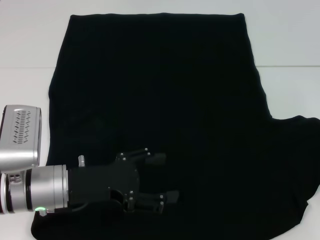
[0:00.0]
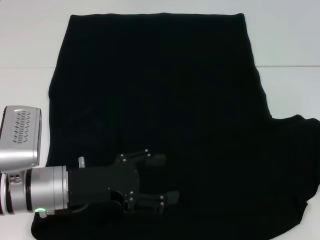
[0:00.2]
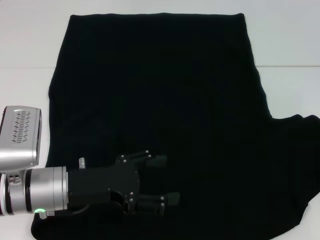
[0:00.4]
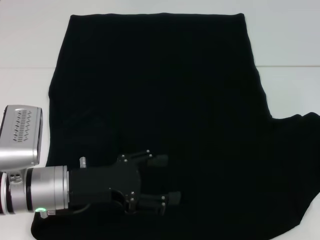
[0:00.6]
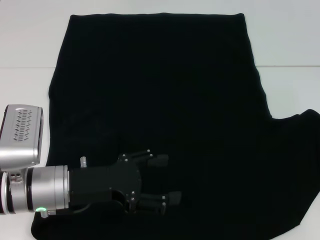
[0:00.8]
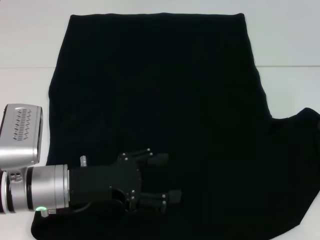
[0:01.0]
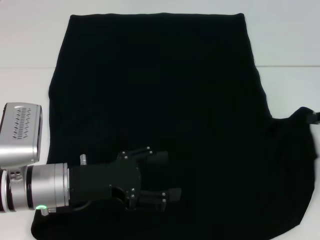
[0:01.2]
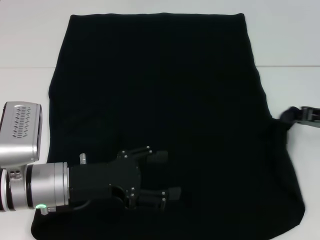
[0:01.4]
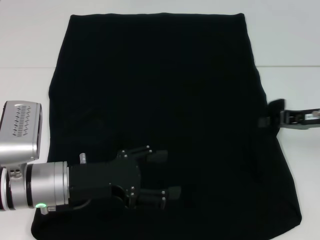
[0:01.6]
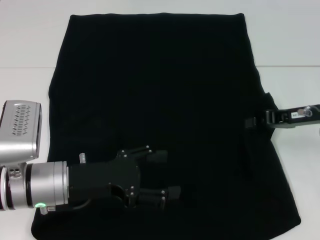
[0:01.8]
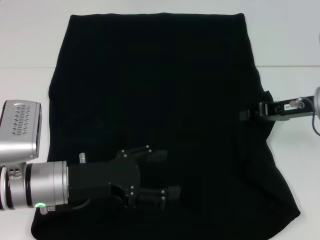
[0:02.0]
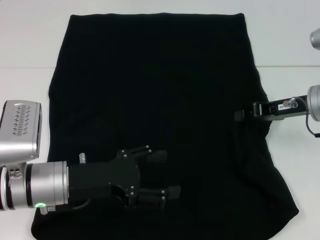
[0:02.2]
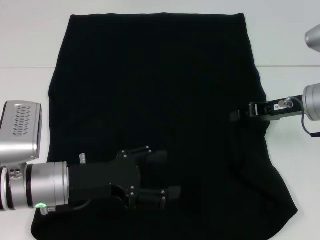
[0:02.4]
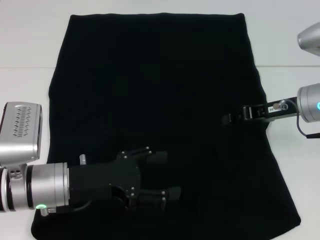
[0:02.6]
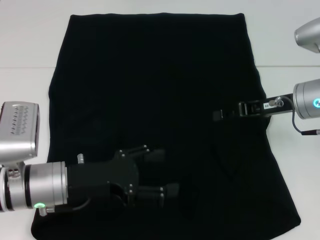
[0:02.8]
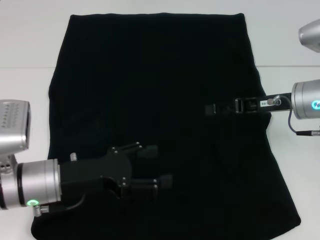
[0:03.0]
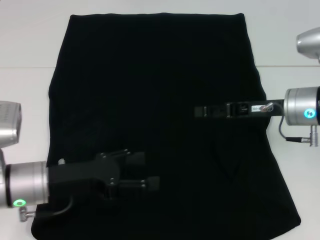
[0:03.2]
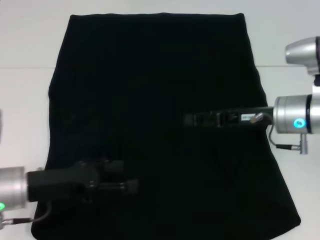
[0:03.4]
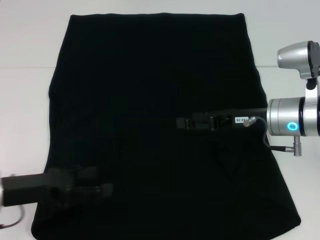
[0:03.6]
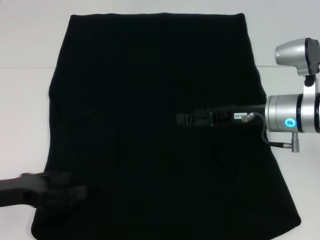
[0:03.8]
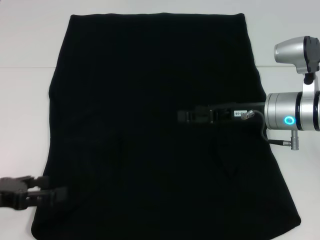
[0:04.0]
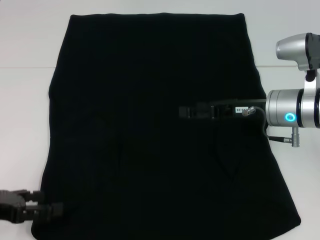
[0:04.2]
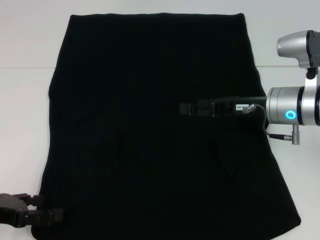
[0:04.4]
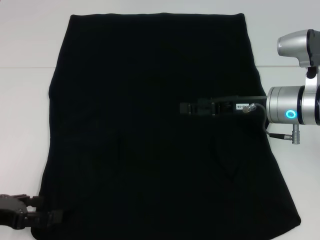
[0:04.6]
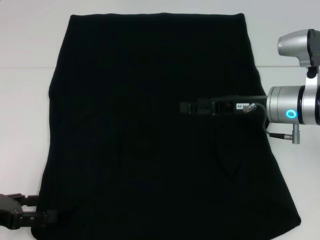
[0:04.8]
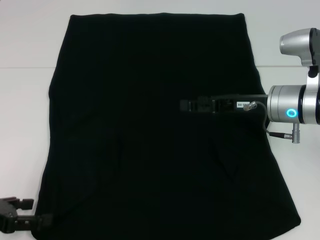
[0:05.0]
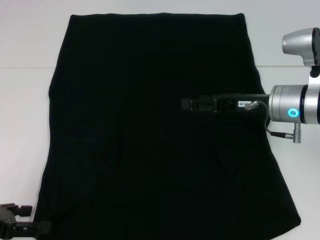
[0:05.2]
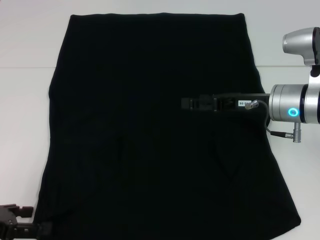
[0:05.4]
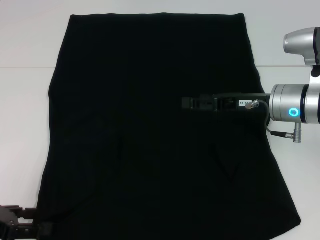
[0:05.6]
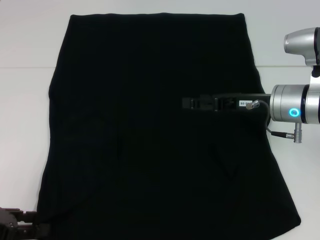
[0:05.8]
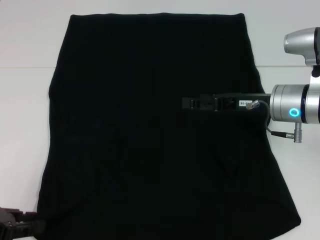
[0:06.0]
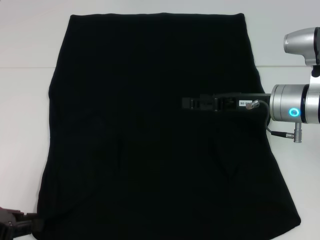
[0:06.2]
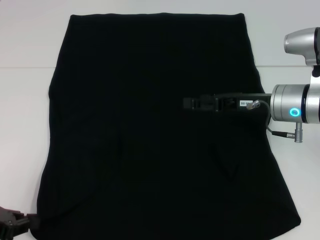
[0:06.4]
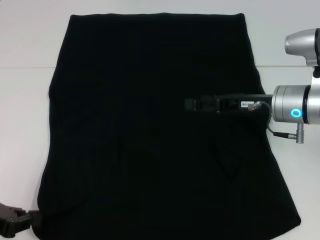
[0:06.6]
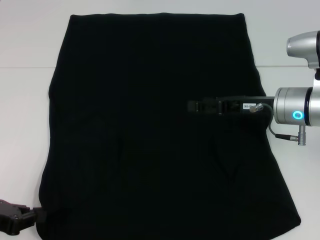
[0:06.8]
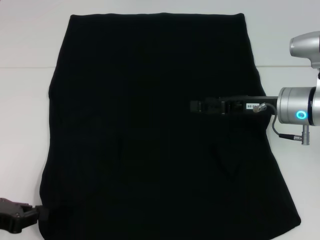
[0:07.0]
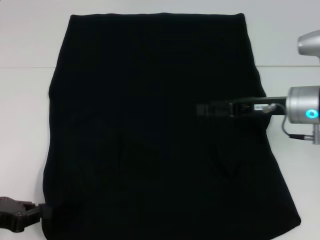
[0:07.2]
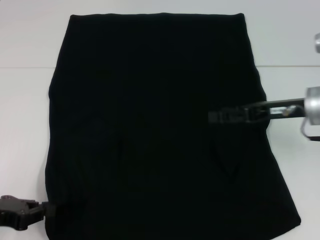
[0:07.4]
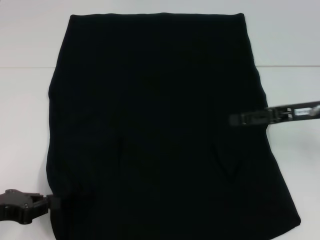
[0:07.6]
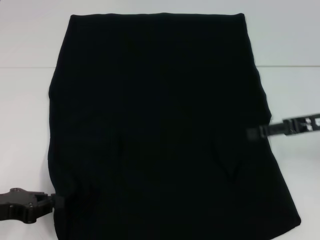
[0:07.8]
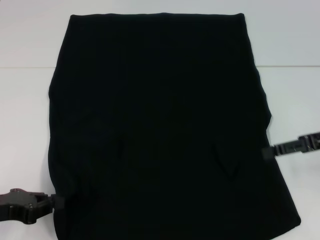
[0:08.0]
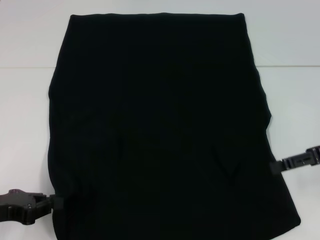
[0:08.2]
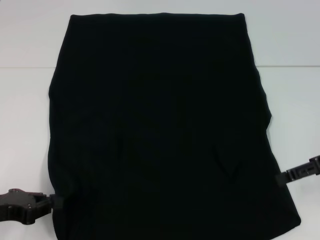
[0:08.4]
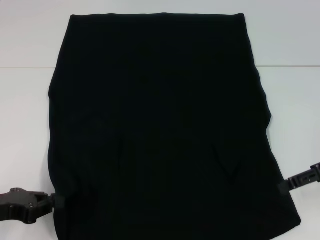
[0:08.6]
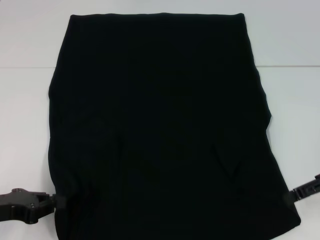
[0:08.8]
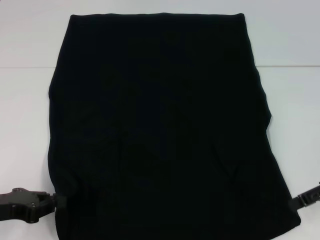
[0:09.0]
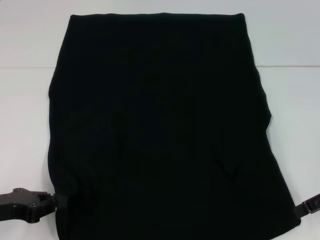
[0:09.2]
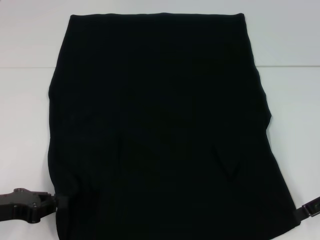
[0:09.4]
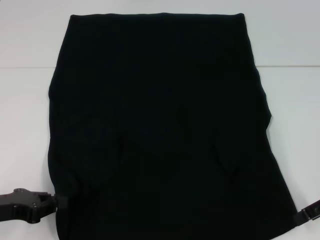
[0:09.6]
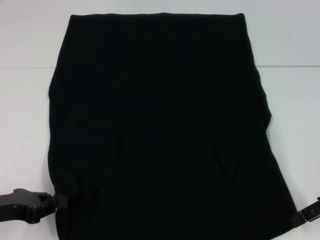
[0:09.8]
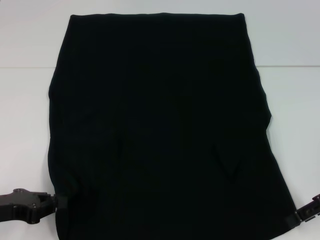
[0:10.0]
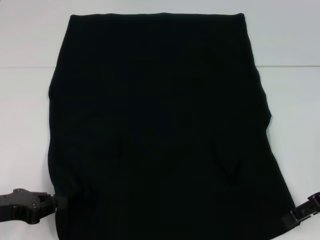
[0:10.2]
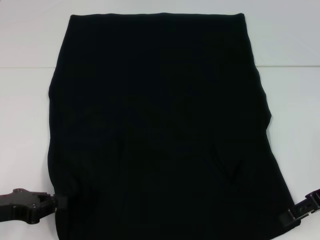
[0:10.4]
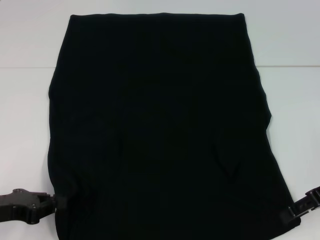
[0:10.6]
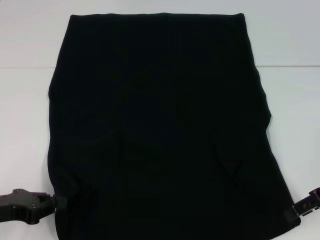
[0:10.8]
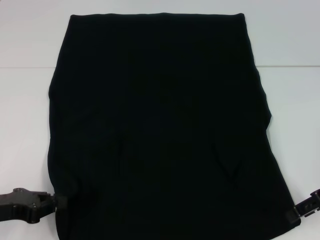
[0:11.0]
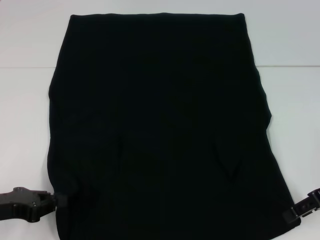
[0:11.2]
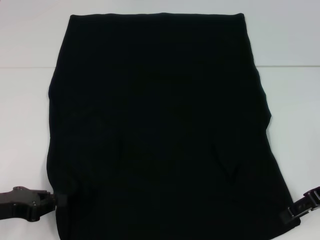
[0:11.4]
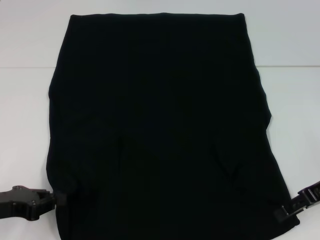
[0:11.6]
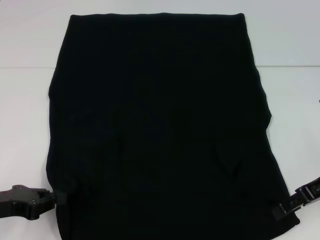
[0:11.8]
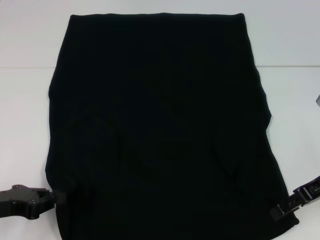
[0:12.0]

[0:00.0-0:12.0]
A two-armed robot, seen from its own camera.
Step, 0:00.0 to 0:04.0: Fold the bottom right sleeve with your right hand.
0:00.0 to 0:01.6: The right gripper heads to the left, covering about 10 cm.
0:01.6 to 0:03.0: The right gripper goes roughly 5 cm to the left, and opens.
0:03.0 to 0:04.4: The right gripper opens its fingers; the left gripper goes some 15 cm to the left.
0:04.4 to 0:06.0: There are only small adjustments of the grippers.
0:06.0 to 0:07.6: The left gripper closes up. Meanwhile the right gripper heads to the right, covering about 10 cm.
0:07.6 to 0:09.0: The right gripper shifts by approximately 5 cm.
0:09.0 to 0:12.0: There are only small adjustments of the grippers.

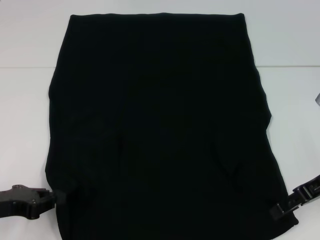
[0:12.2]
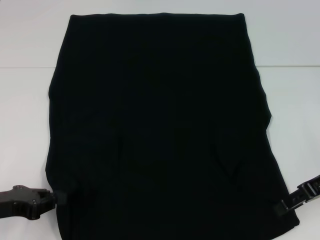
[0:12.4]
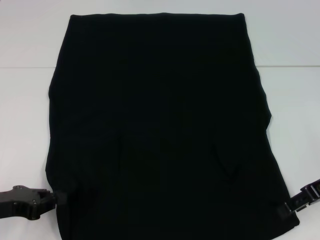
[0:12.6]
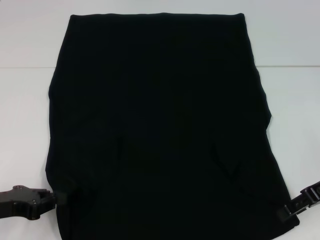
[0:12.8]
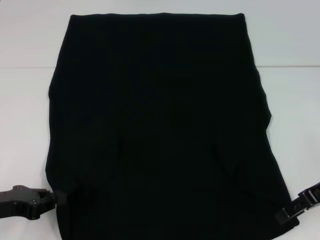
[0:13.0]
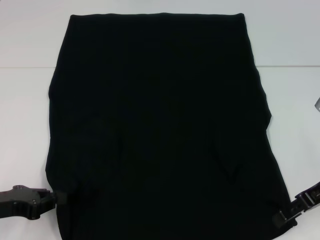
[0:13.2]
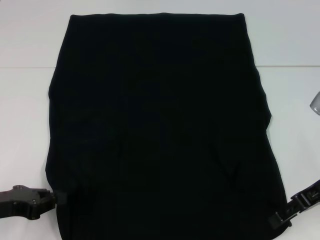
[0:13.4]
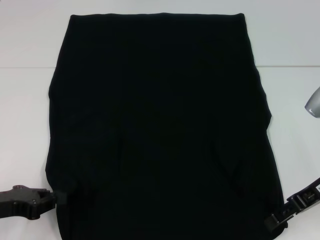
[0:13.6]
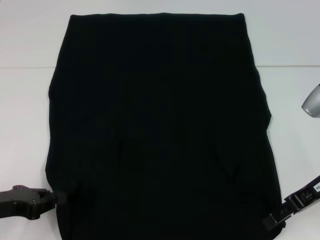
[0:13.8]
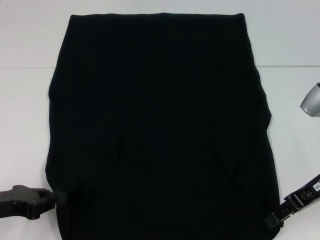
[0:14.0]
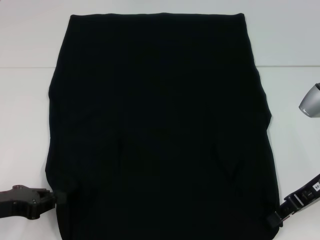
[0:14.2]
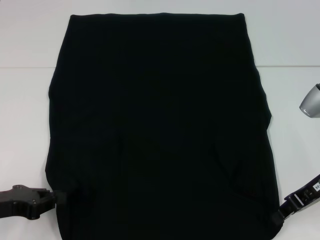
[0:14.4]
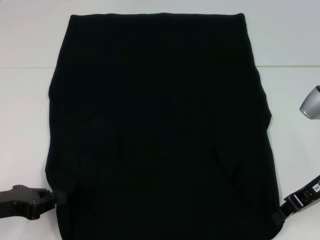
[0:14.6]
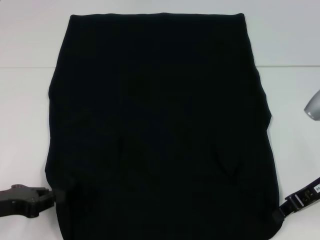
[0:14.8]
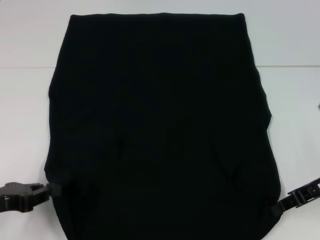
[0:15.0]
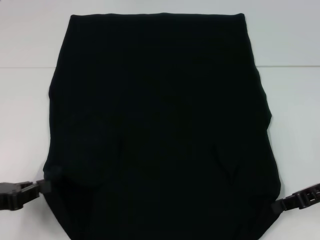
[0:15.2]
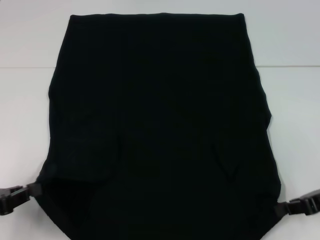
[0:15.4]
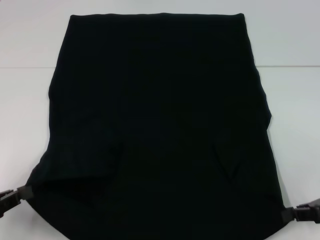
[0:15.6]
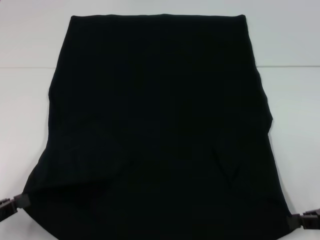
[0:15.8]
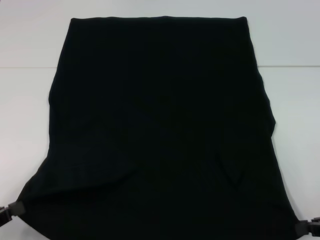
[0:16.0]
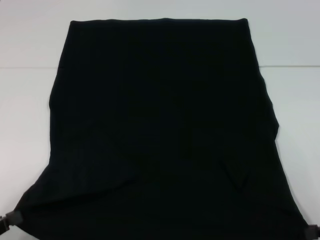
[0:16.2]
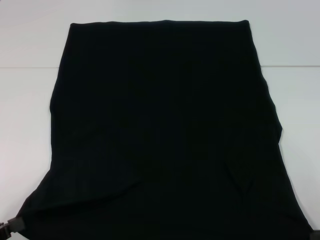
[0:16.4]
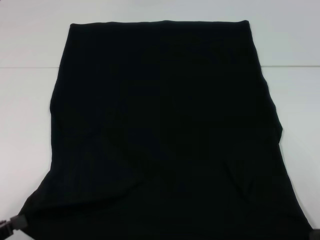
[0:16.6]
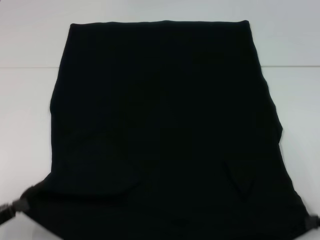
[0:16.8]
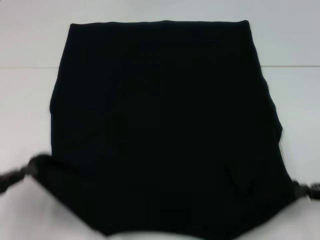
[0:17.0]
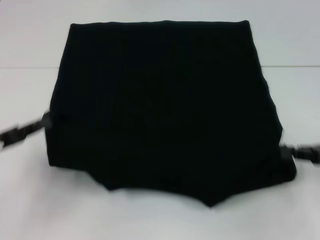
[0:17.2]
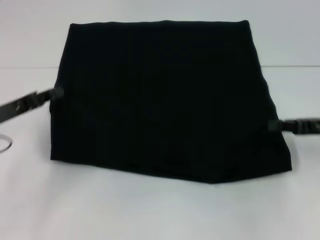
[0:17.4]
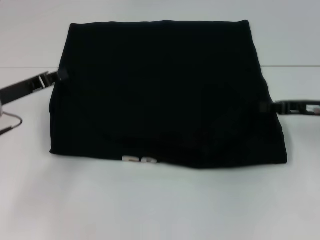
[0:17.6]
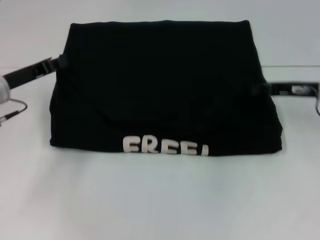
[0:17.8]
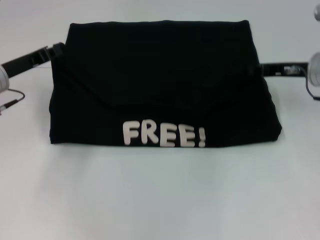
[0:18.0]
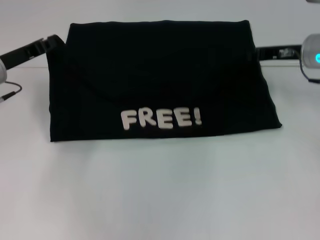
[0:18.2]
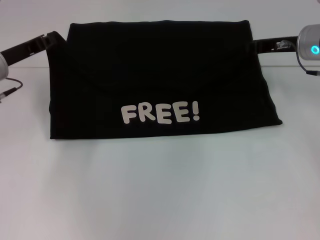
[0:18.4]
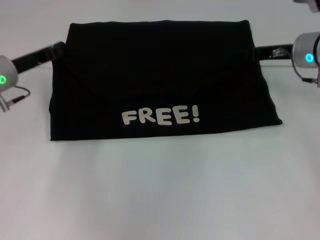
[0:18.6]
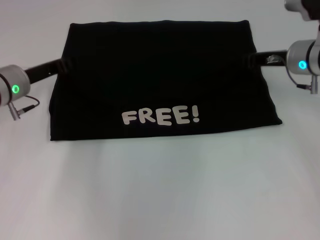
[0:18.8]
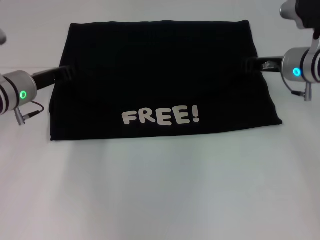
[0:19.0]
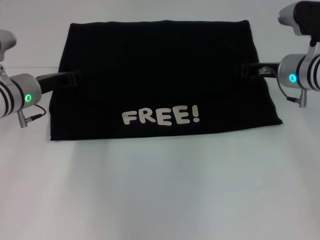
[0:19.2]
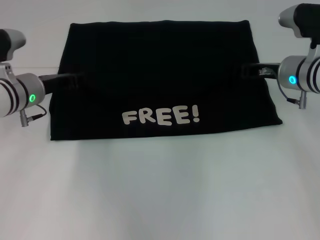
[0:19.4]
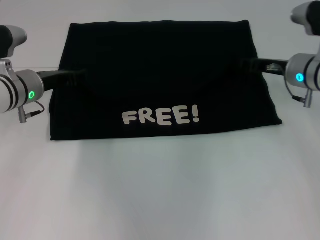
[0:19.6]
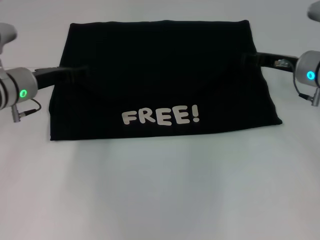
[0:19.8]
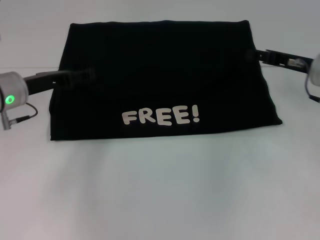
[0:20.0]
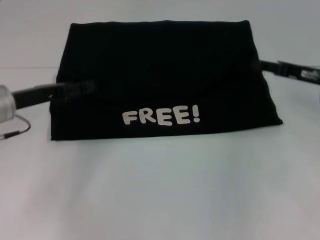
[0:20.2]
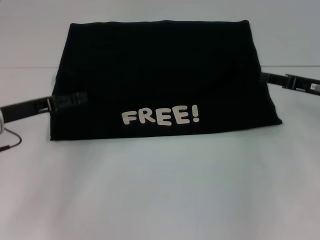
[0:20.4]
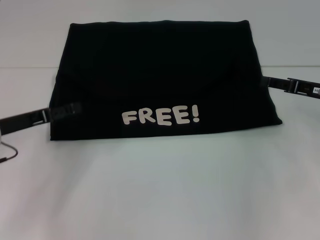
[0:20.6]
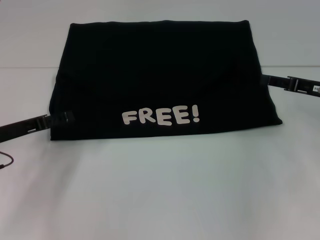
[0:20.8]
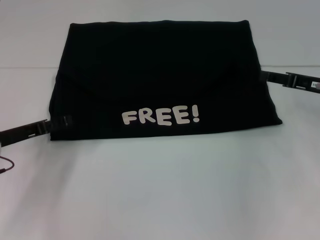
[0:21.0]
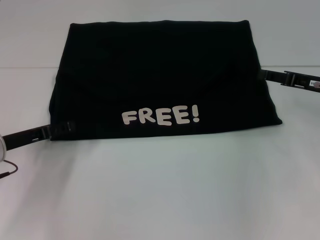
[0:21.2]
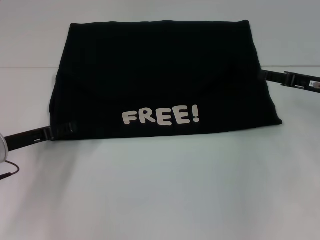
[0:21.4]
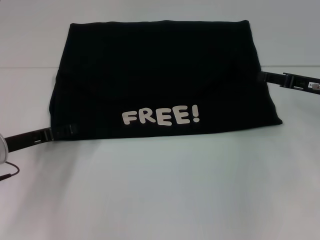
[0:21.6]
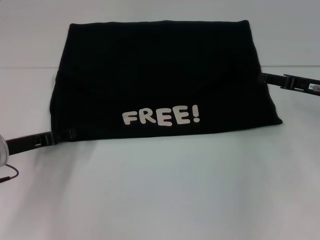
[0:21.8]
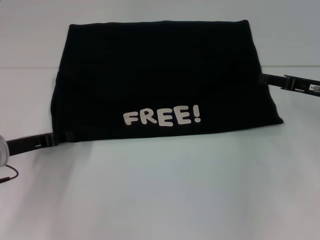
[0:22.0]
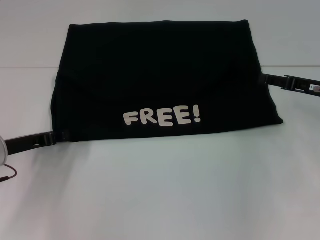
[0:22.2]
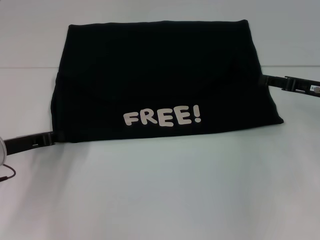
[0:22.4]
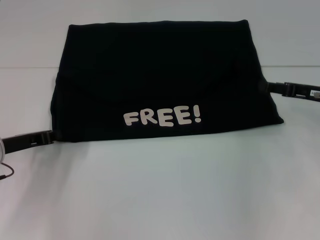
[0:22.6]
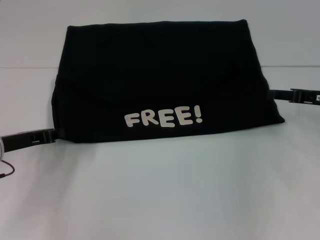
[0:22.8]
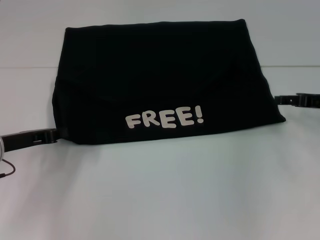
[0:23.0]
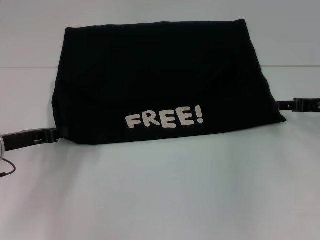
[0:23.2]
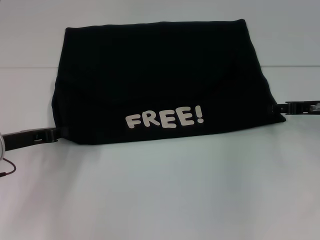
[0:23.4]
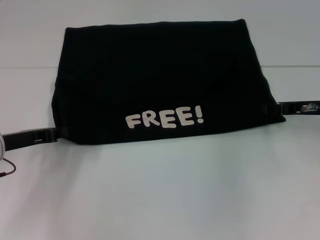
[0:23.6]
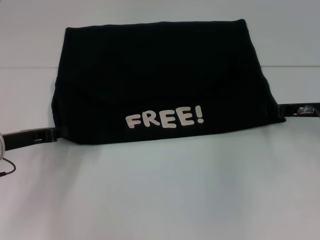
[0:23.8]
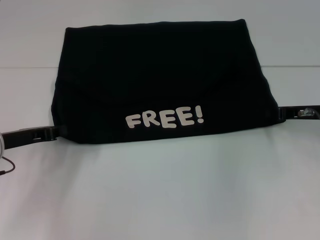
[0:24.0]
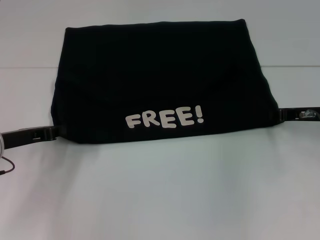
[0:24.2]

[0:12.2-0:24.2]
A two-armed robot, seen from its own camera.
Step, 0:12.2 to 0:15.6: Grab the bottom left corner with your left hand.
Step, 0:12.2 to 0:15.6: Grab the bottom right corner with your right hand.
Step, 0:15.8 to 0:20.4: Fold the clothes with your left hand.
Step, 0:15.8 to 0:20.4: Fold the clothes with your right hand.
0:12.2 to 0:13.8: The grippers move only a little.
0:13.8 to 0:15.2: The right gripper closes its fingers.
0:15.2 to 0:16.6: The right gripper is displaced backward and to the right by about 10 cm, while the left gripper shifts about 10 cm backward.
0:16.6 to 0:18.2: The right gripper shifts some 30 cm forward and to the left. The left gripper heads forward, covering approximately 30 cm.
0:18.2 to 0:19.8: The left gripper opens; the right gripper opens up.
0:19.8 to 0:21.2: The right gripper goes roughly 5 cm to the right, while the left gripper shifts about 10 cm backward.
0:21.2 to 0:22.6: The left gripper closes its fingers.
0:22.6 to 0:24.2: The grippers make only small movements.
